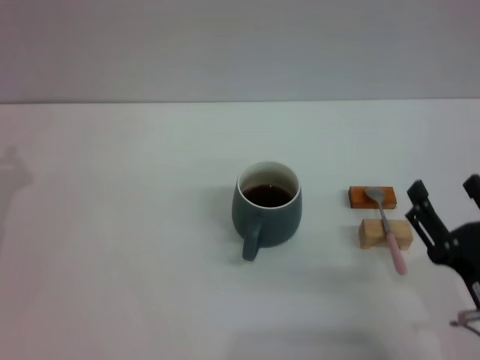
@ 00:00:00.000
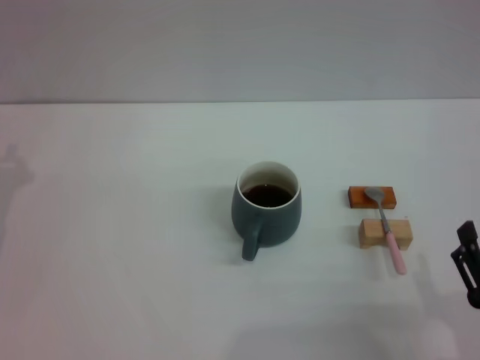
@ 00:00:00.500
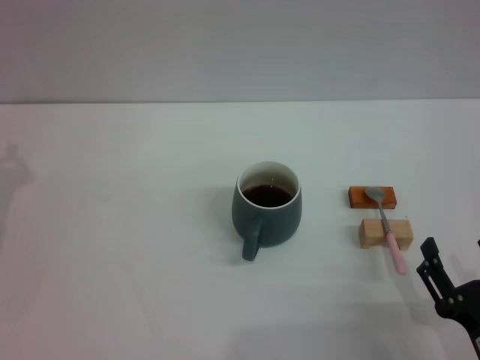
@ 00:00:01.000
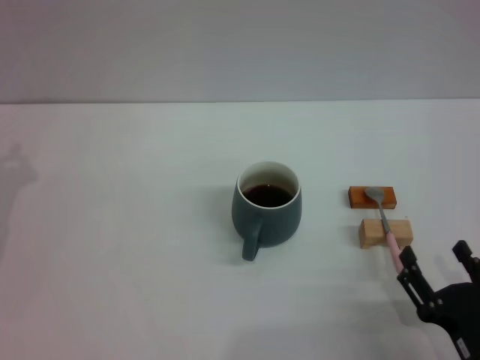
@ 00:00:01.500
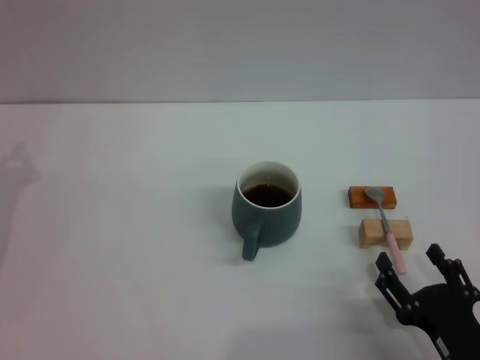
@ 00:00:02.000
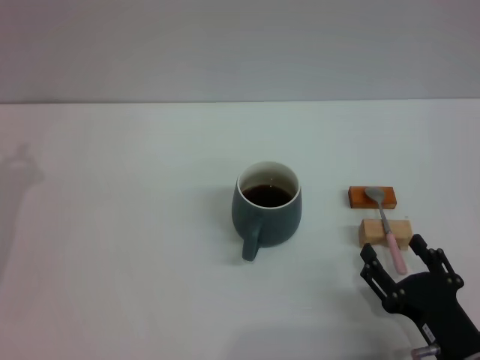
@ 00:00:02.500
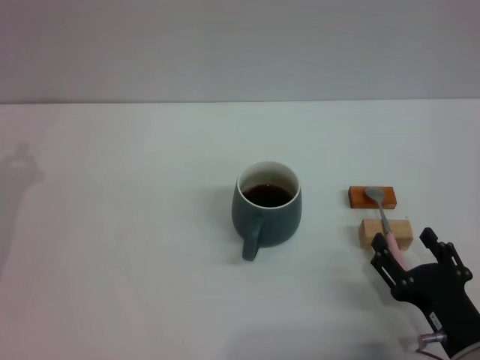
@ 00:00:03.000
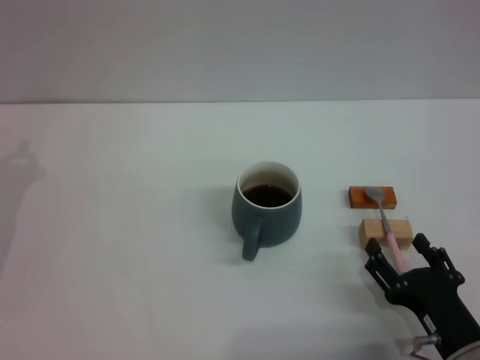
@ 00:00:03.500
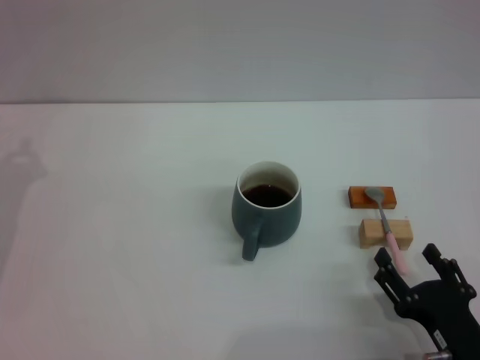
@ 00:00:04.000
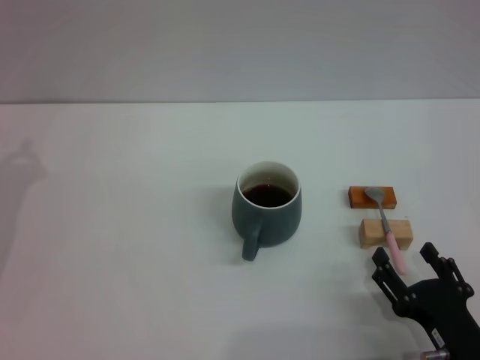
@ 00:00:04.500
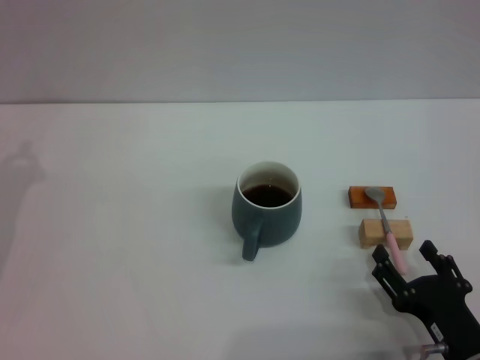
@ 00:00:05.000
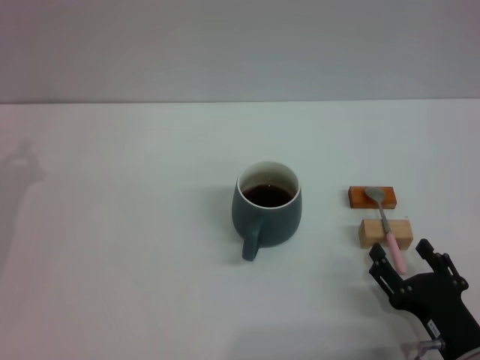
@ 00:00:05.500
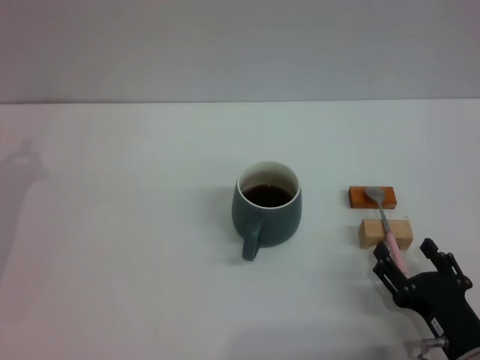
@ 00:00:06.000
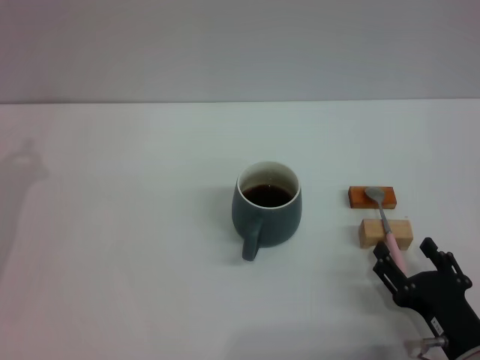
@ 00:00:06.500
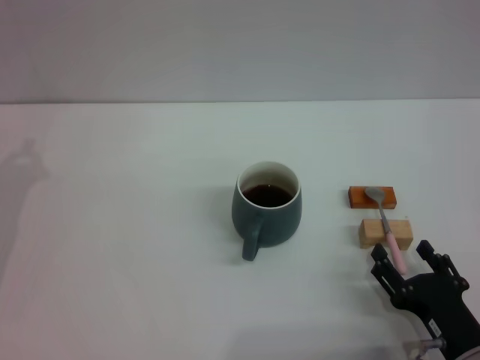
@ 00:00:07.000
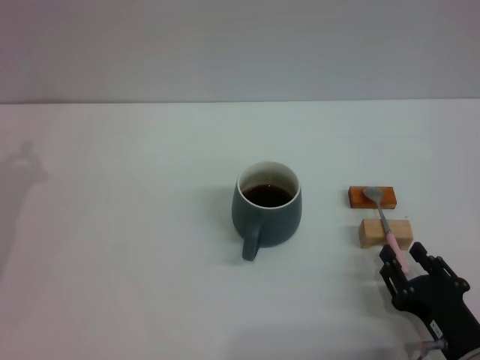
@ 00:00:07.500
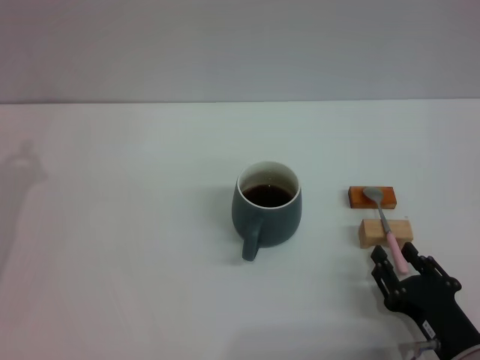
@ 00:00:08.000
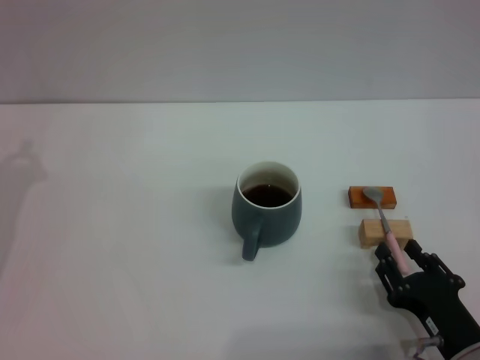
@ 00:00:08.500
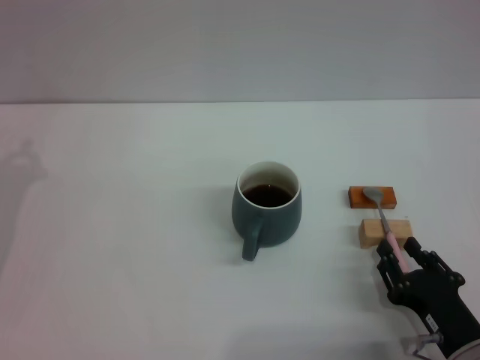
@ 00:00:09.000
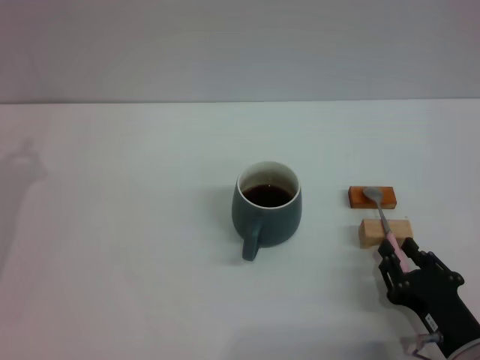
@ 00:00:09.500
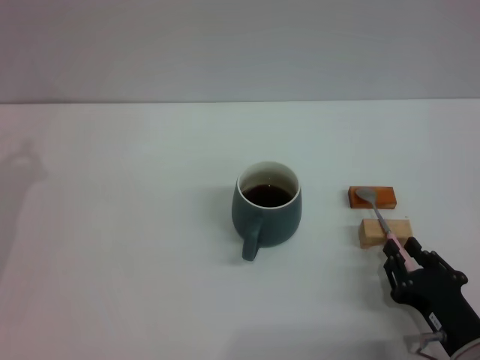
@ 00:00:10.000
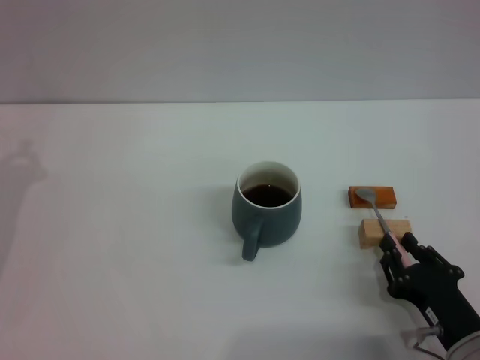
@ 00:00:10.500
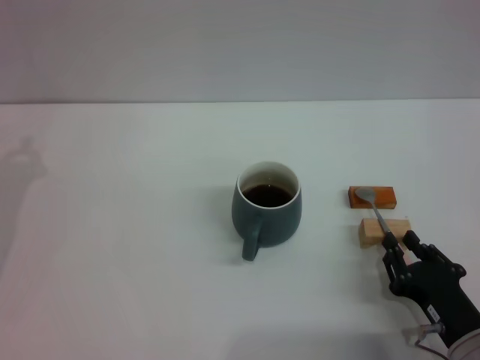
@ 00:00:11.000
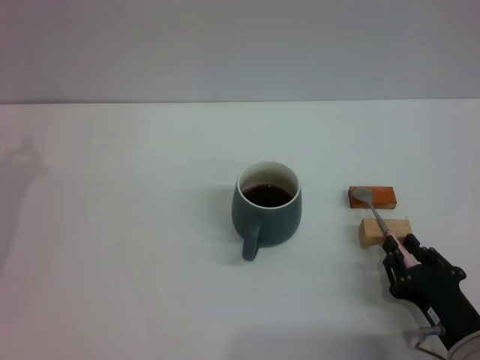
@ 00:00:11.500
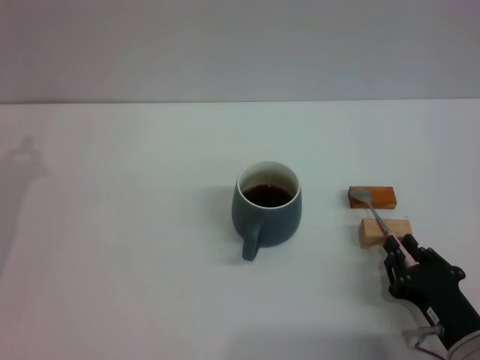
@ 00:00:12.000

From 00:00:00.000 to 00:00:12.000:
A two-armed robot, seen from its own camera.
Task of the whole recording: Move the grey cup to the center, lift the pink spoon, stir it three times in the cup, and put the spoon into the cup.
From 00:00:00.000 to 00:00:02.000: The right gripper travels downward by roughly 5 cm.
From 00:00:02.000 to 00:00:06.000: The grippers stay close to where they were, moving slightly.
From 00:00:06.000 to 00:00:08.000: The right gripper closes up.
From 00:00:08.000 to 00:00:10.000: Both grippers stay put.
From 00:00:10.000 to 00:00:12.000: Both grippers stay about where they are.

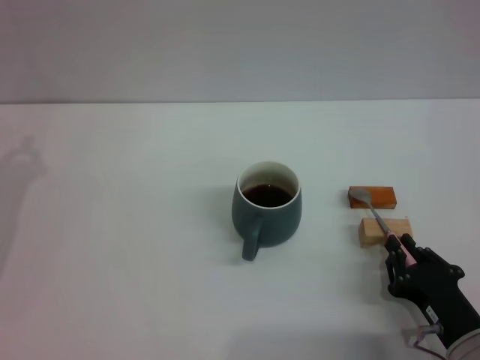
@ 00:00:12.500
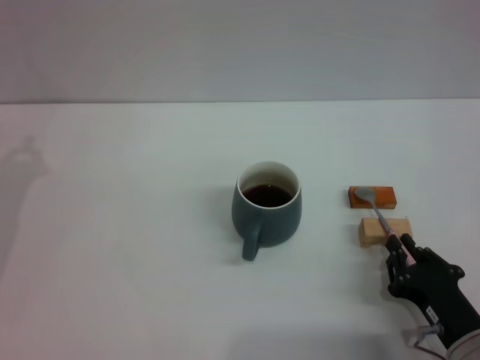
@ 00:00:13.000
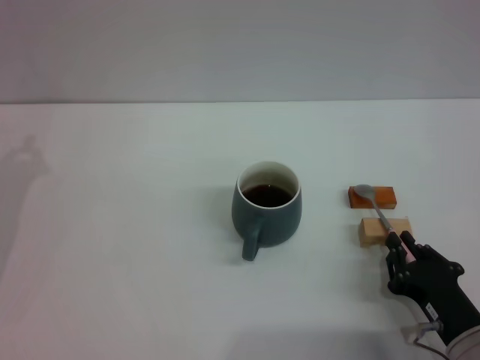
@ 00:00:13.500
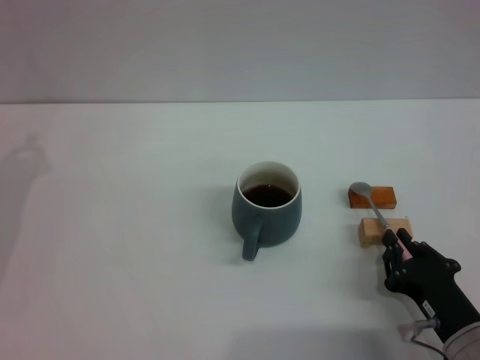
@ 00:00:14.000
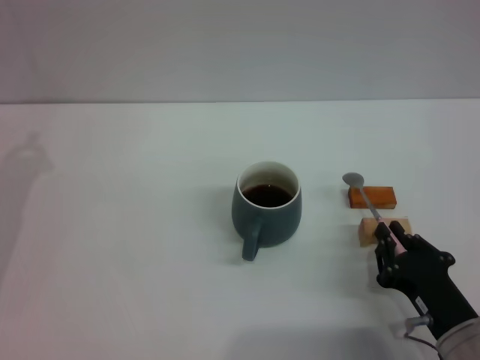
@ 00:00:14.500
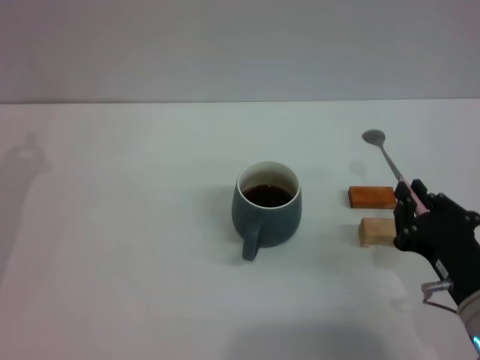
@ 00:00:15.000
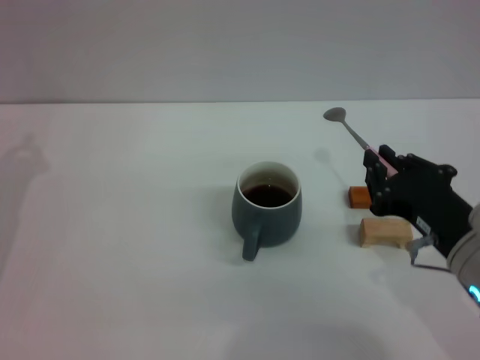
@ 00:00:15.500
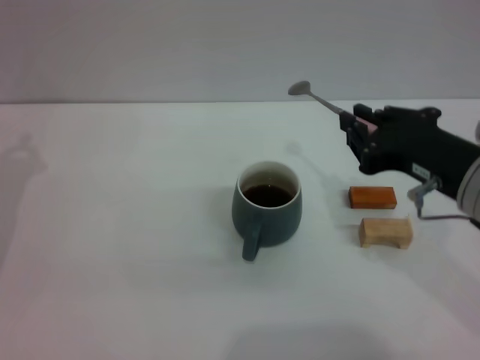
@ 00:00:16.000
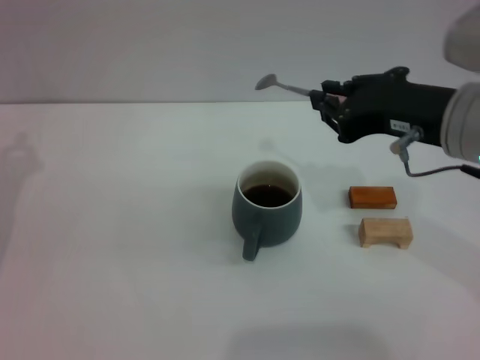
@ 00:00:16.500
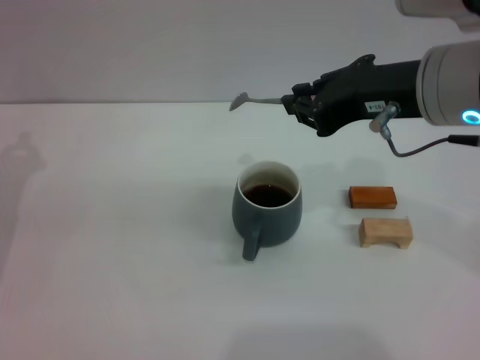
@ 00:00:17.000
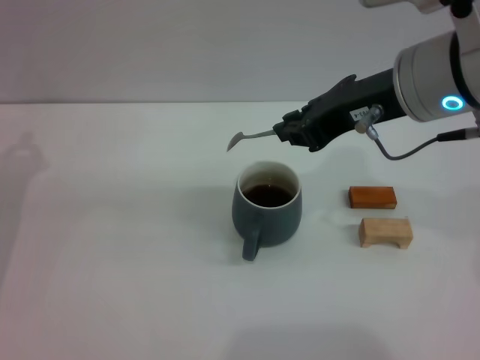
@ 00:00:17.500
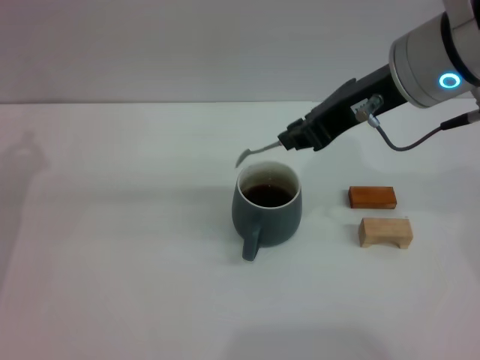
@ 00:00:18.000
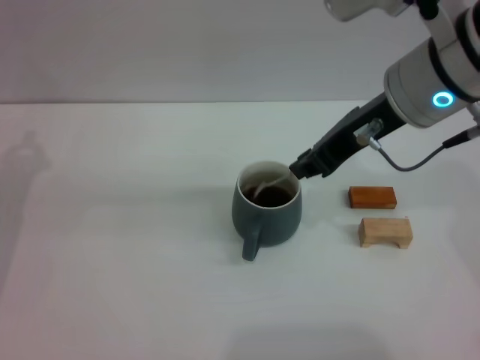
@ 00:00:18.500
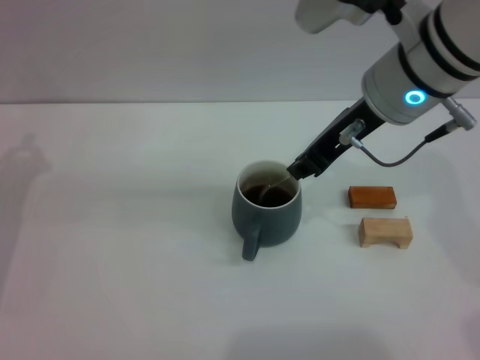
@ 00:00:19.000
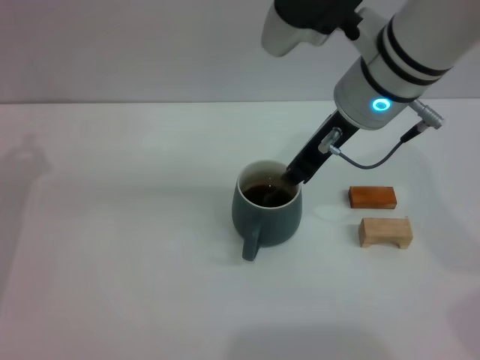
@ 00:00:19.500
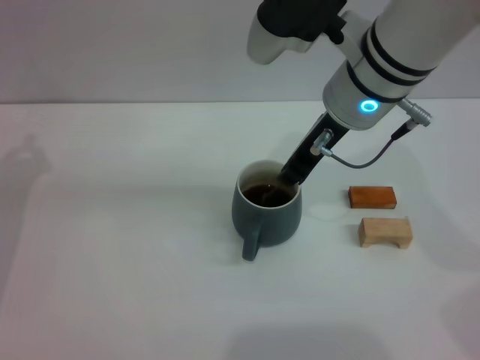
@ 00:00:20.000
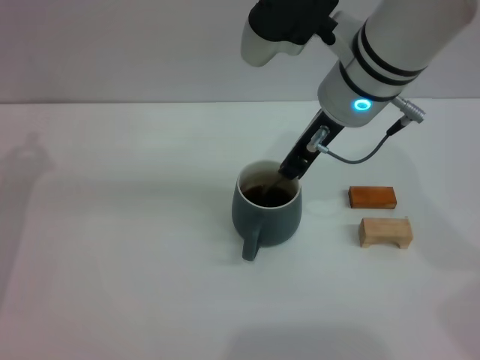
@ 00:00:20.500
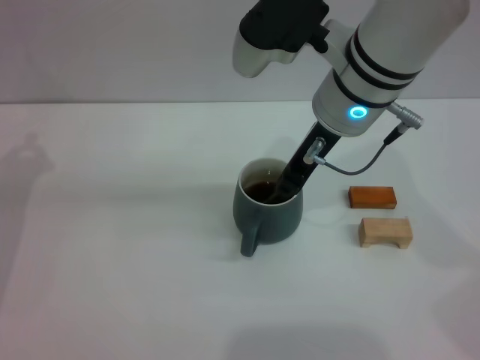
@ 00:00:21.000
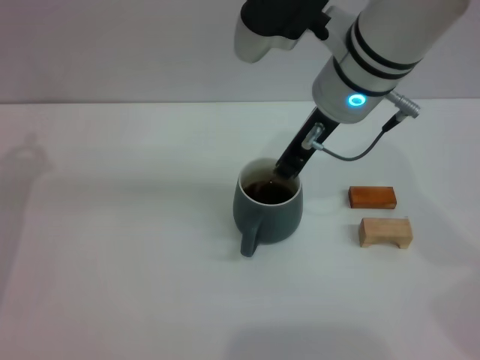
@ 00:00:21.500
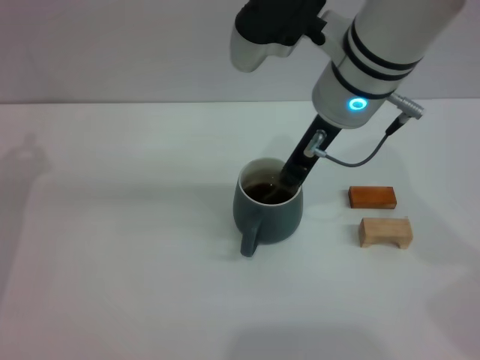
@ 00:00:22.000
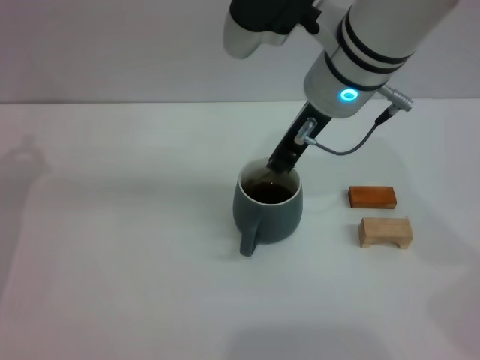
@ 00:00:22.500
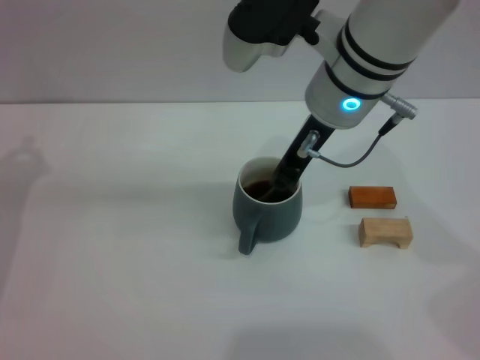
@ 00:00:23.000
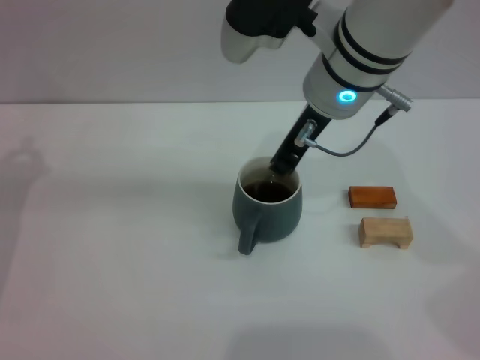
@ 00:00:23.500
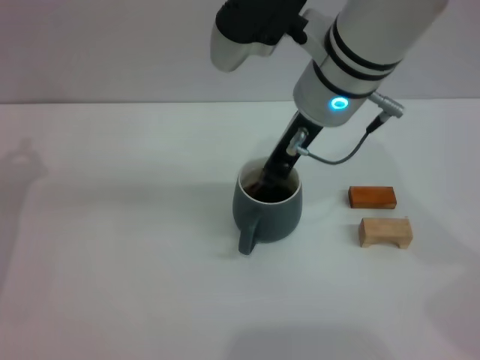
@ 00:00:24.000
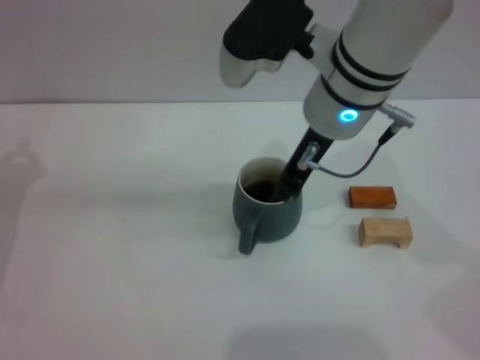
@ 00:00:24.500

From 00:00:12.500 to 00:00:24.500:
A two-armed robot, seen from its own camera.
Task of the whole recording: Move the grey cup to the center, lift the pink spoon, stir it three times in the cup, and put the spoon into the cup.
Step, from 00:00:12.500 to 00:00:15.000: Pick up the spoon with the right gripper.
From 00:00:12.500 to 00:00:14.500: There are only small adjustments of the grippers.
From 00:00:14.500 to 00:00:16.500: The right gripper is displaced upward and forward by approximately 25 cm.
From 00:00:16.500 to 00:00:18.500: The right gripper goes about 5 cm forward.
From 00:00:18.500 to 00:00:20.500: The right gripper goes about 5 cm to the left.
From 00:00:20.500 to 00:00:24.500: The grippers make only small movements.

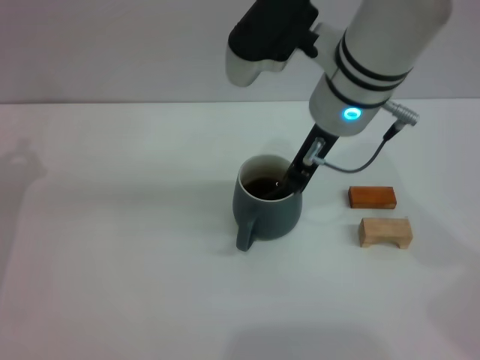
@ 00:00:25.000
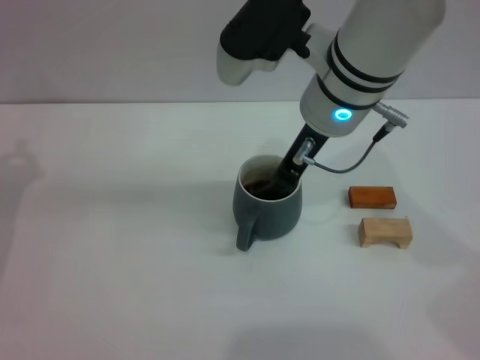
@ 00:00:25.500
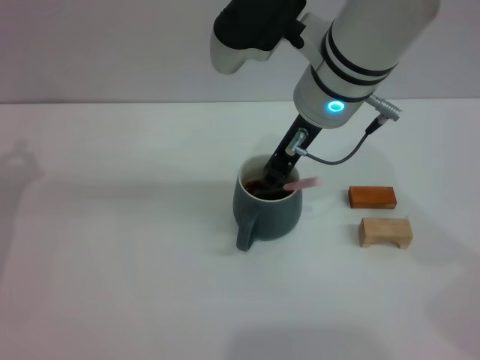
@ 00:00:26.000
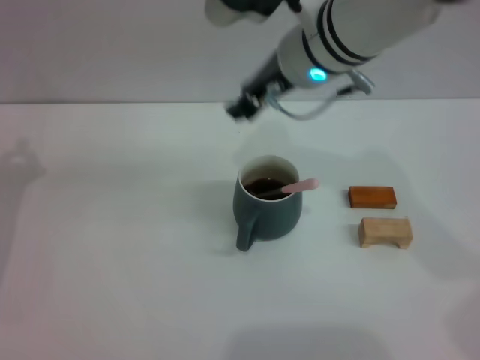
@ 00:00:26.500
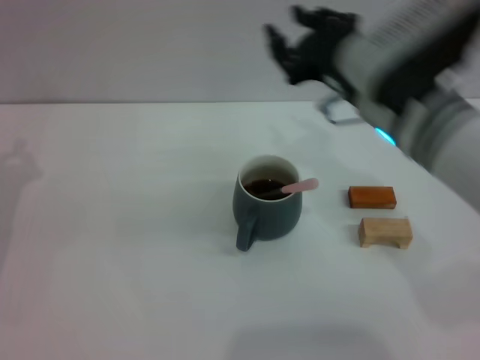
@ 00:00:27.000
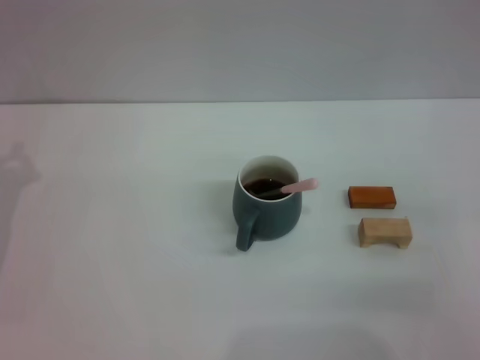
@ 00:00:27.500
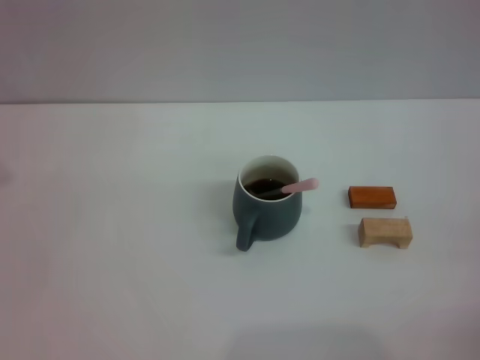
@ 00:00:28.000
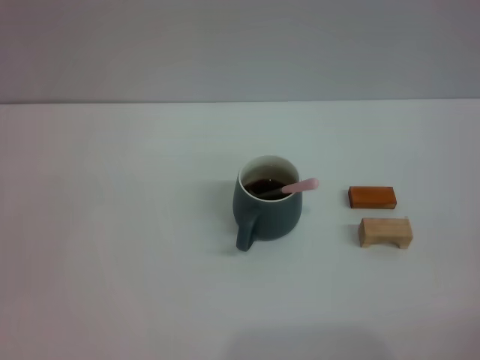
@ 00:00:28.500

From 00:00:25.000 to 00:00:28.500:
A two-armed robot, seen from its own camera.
Task of the whole recording: Move the grey cup to the center, lift the pink spoon, stir it three times in the cup, and put the spoon into the cup.
From 00:00:25.000 to 00:00:27.000: The right gripper is displaced to the right by some 5 cm, and opens up.
From 00:00:27.000 to 00:00:28.500: The right gripper moves to the right, backward and downward, roughly 30 cm.
